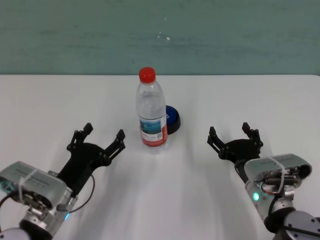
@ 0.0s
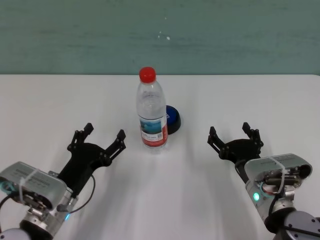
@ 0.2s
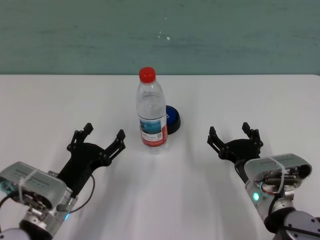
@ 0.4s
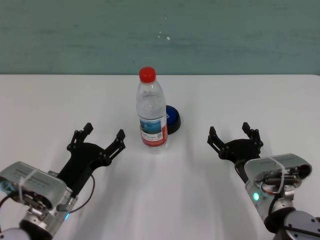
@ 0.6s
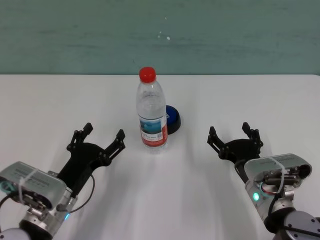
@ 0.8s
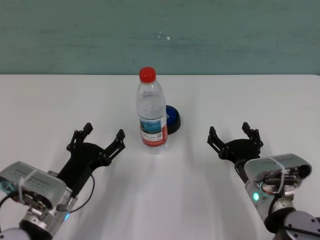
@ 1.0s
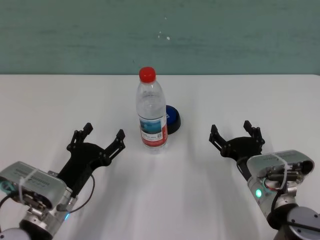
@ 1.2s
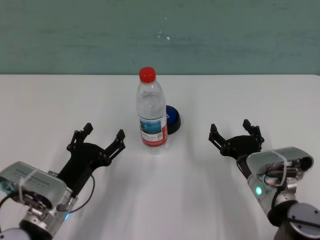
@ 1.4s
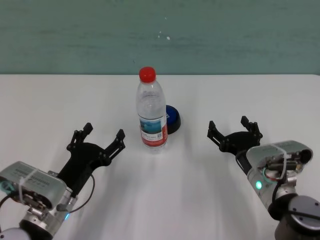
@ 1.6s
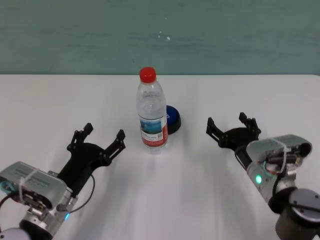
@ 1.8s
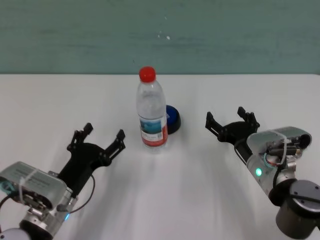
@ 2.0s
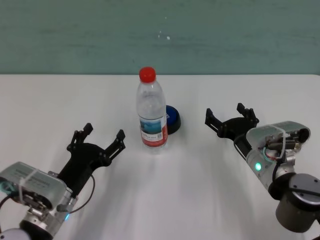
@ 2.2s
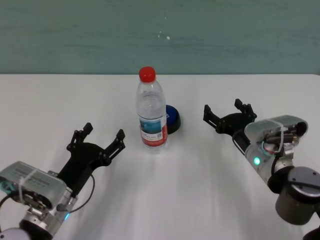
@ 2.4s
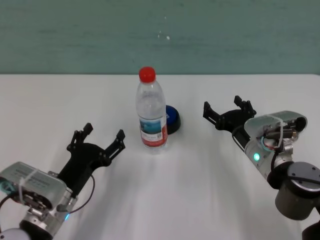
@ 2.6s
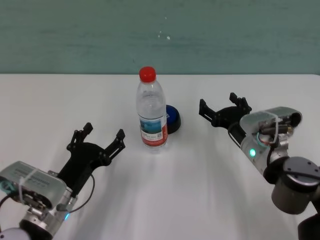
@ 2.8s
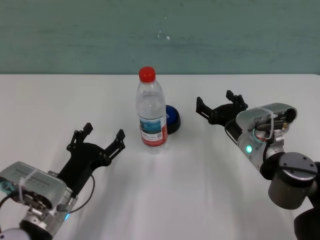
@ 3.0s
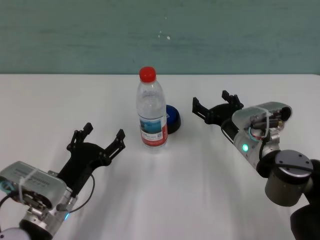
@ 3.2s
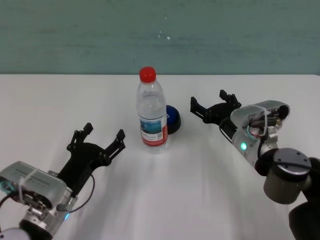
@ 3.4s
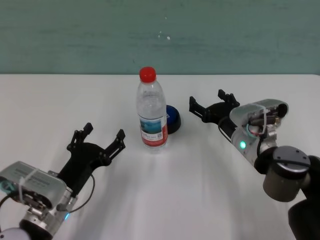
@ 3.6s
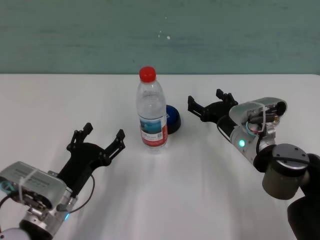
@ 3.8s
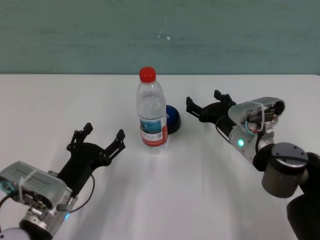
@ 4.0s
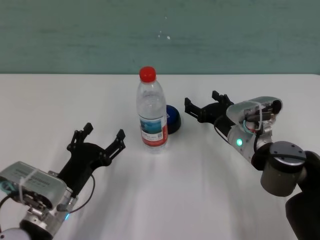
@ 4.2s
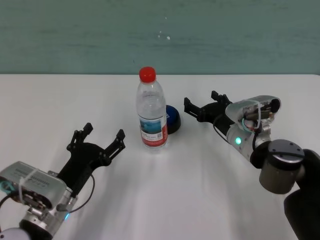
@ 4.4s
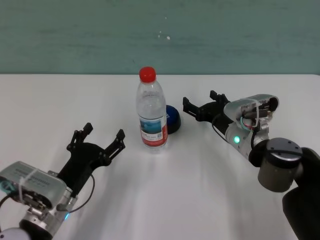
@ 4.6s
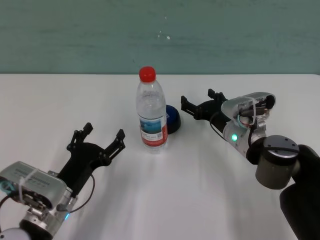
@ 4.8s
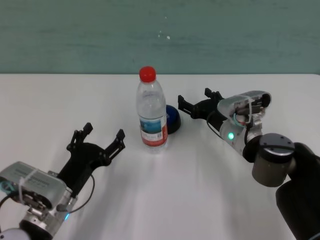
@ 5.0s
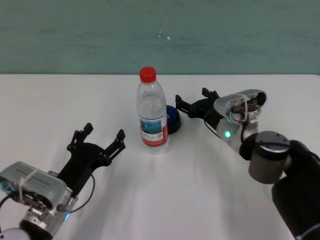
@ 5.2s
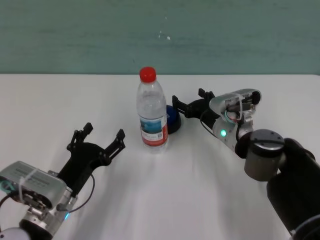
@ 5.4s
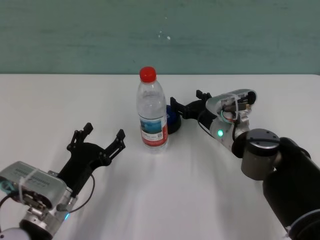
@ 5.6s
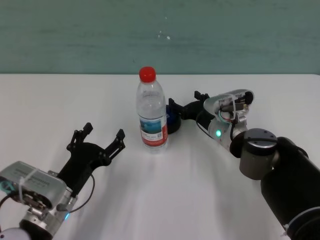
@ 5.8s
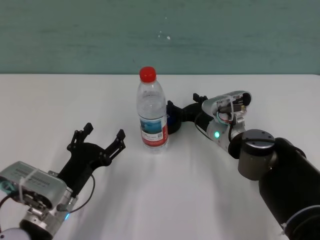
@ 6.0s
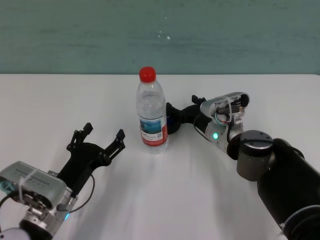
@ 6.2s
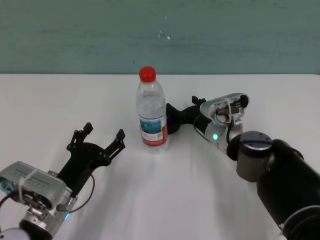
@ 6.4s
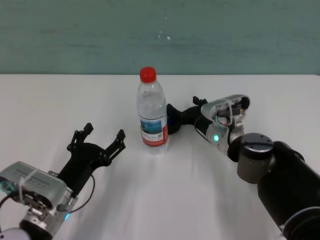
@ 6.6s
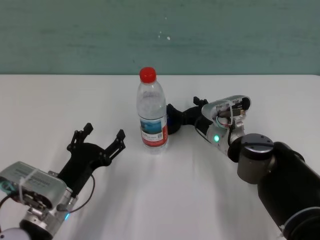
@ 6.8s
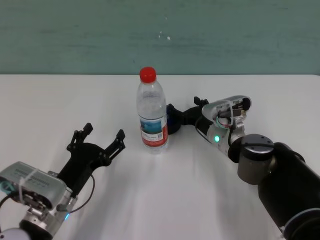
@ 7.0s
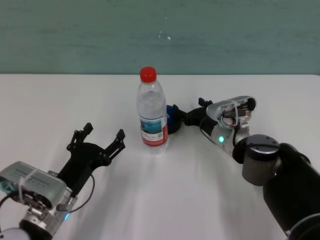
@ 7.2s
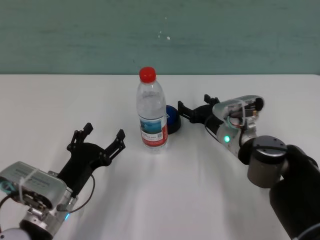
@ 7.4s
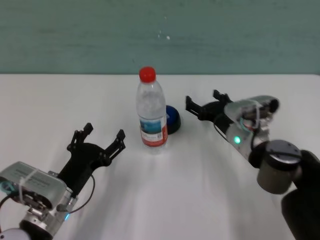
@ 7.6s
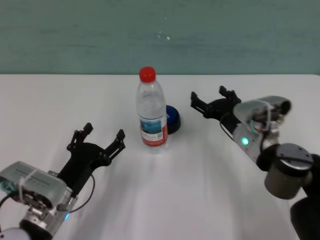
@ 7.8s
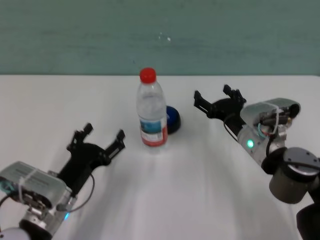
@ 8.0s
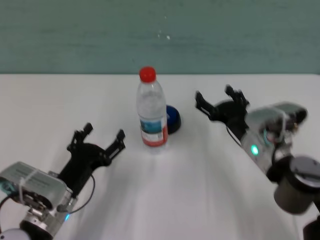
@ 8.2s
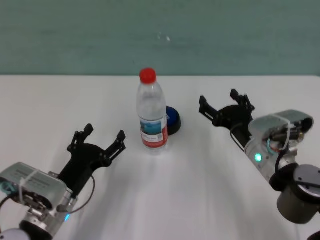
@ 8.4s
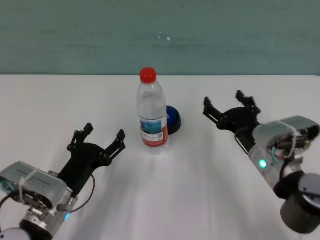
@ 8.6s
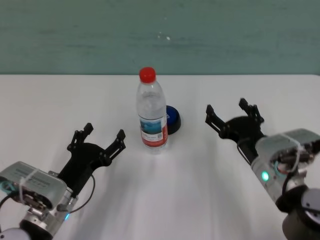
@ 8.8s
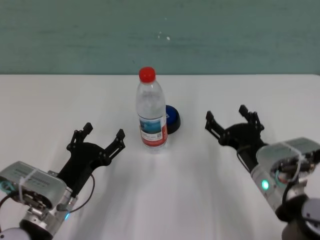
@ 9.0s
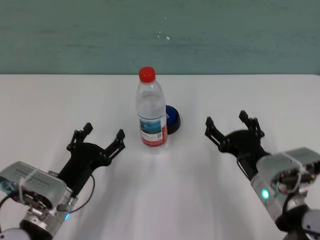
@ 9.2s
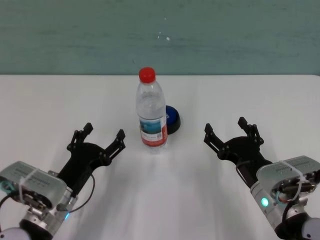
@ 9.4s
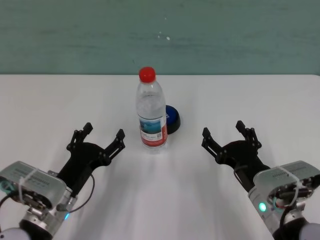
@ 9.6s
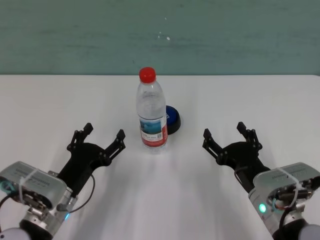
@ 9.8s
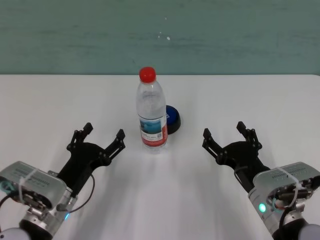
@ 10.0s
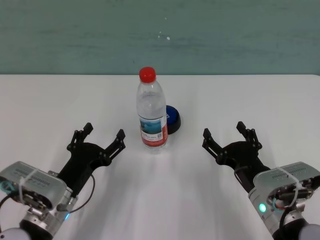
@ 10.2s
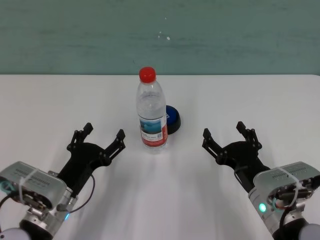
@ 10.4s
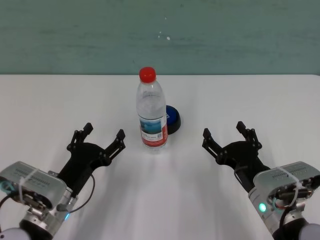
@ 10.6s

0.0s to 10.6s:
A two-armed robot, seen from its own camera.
Task of the whole recording: after avoiding the water bottle on the table, press the button.
Step, 0.0s to 7.2s: Press the button blocked by the bottle with right gripper.

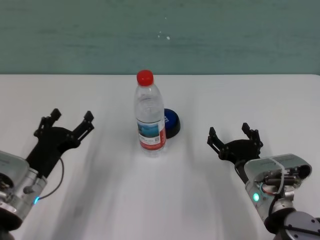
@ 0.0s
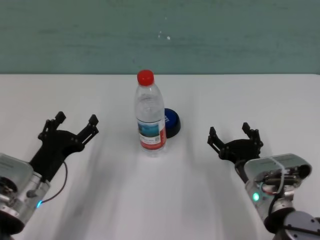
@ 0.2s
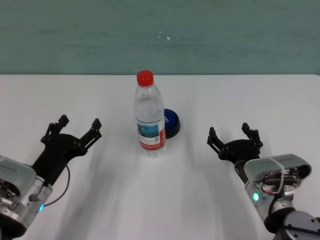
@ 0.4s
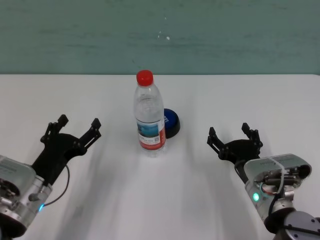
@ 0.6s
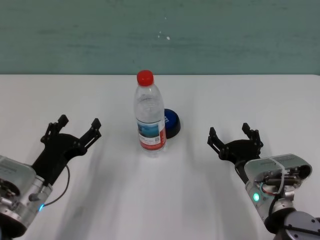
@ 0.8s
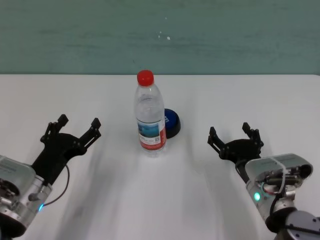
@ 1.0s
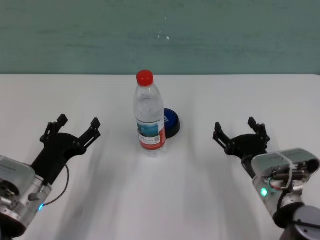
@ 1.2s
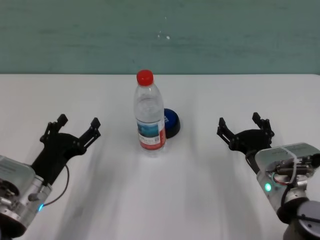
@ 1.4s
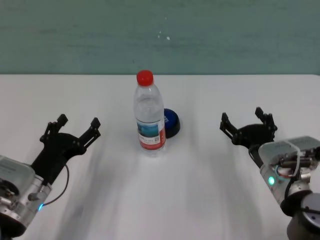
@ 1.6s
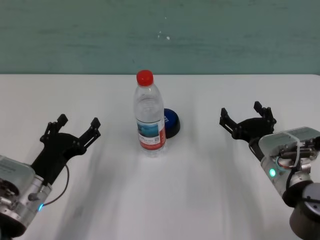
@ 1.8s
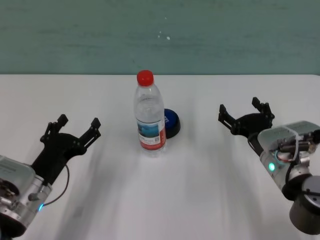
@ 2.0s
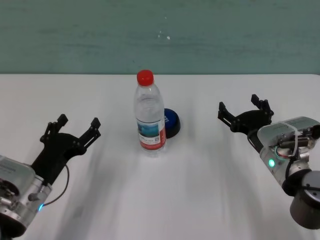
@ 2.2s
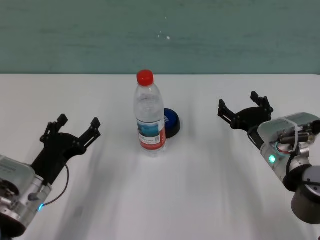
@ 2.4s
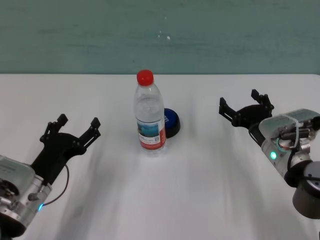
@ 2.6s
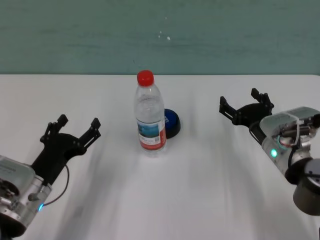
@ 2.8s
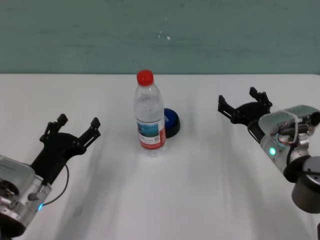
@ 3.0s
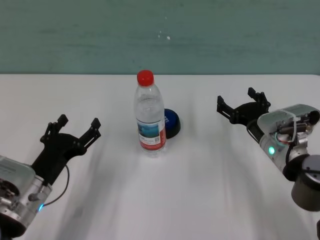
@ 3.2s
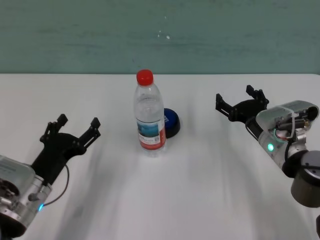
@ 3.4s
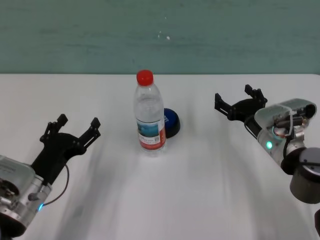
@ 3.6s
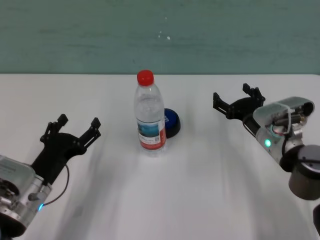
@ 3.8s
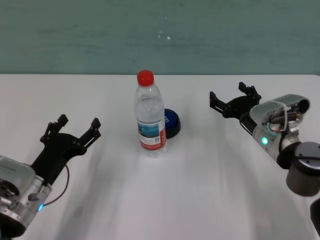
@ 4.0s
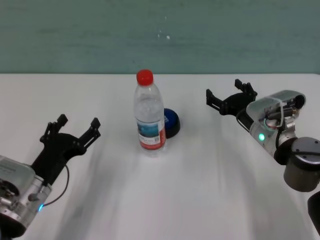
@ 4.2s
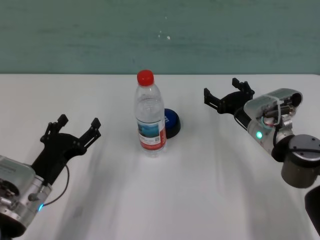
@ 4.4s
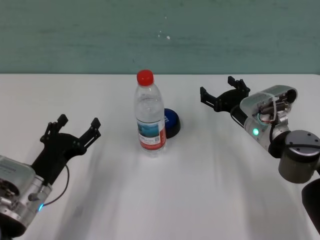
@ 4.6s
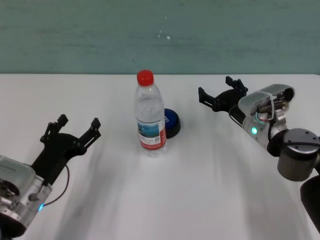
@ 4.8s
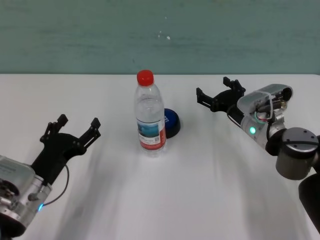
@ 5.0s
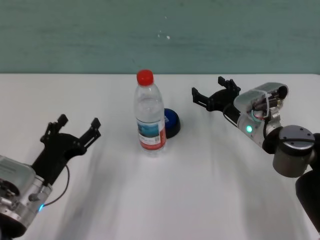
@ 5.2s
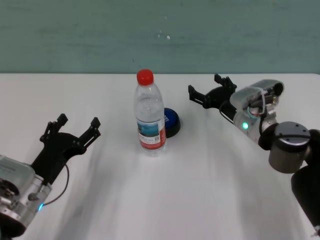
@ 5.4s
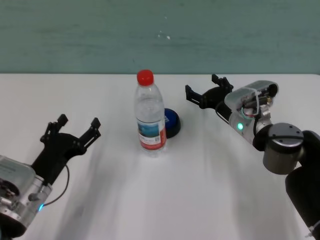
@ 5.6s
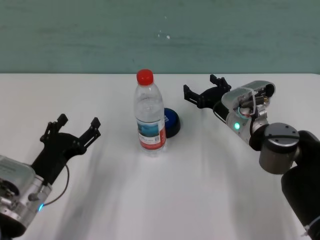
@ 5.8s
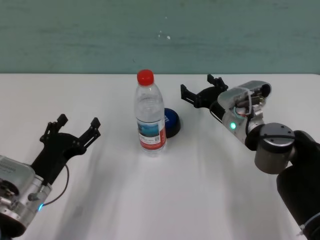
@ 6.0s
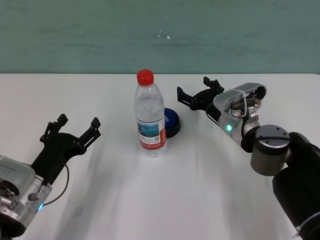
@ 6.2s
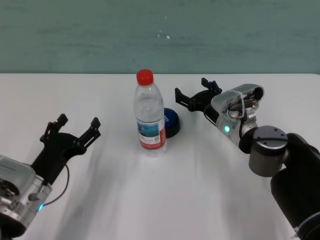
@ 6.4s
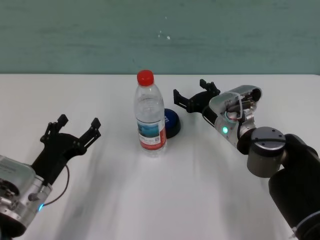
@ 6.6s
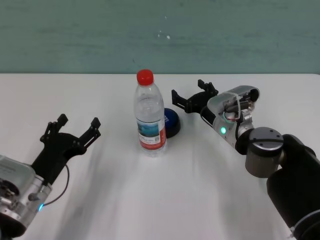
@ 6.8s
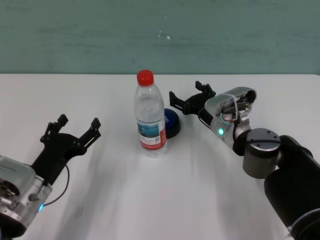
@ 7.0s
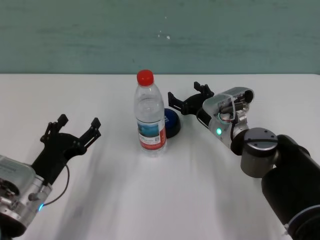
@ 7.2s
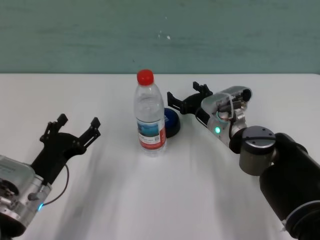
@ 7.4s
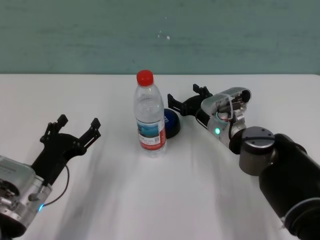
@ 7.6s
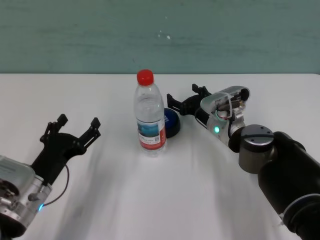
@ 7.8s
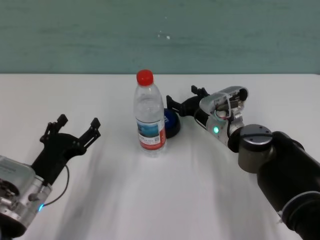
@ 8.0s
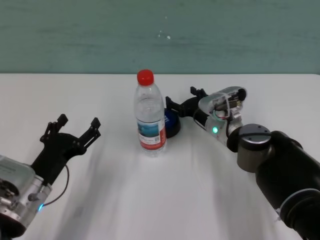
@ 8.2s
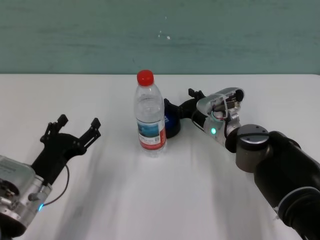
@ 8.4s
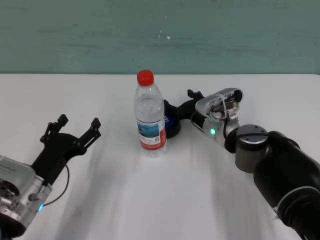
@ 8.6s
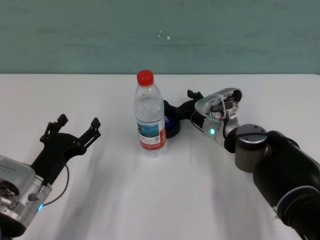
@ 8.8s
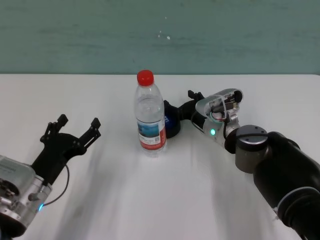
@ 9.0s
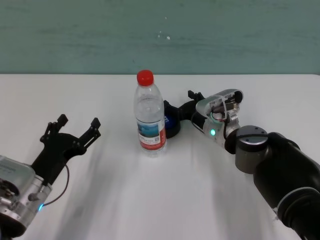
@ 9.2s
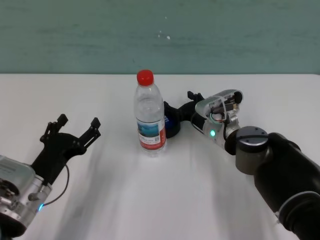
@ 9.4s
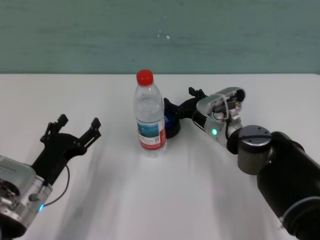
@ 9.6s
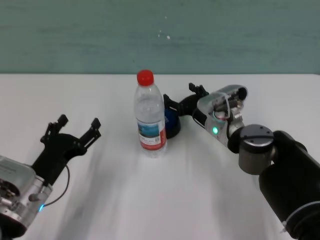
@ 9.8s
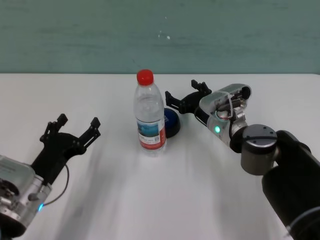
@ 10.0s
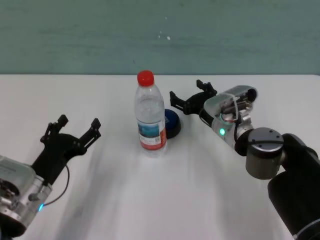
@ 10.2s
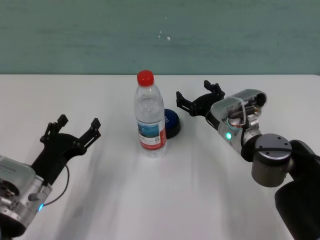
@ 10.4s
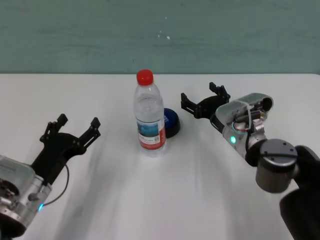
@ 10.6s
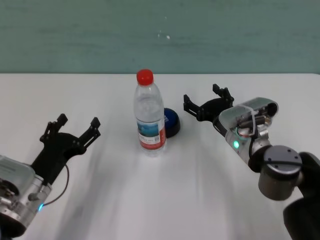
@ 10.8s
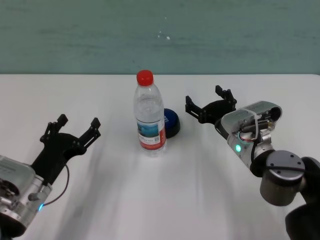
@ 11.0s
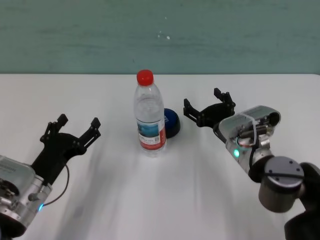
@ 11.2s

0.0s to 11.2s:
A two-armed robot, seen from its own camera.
Task of the whole recording: after avoiding the water bottle on the table, press the button.
Step, 0.0s to 9.6s: Press the button blocked by the bottle with right gripper.
